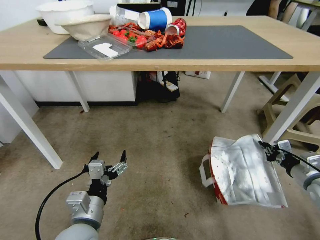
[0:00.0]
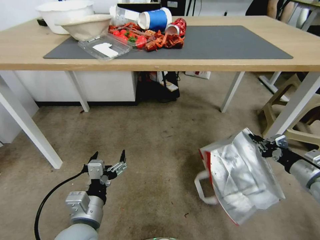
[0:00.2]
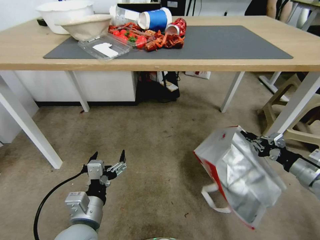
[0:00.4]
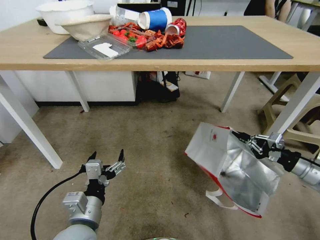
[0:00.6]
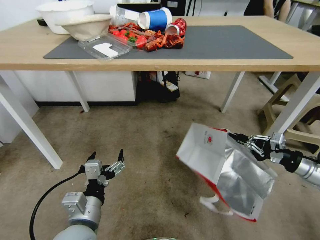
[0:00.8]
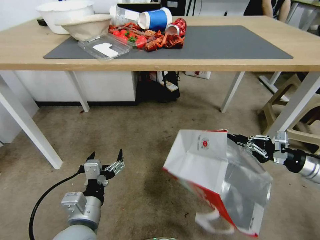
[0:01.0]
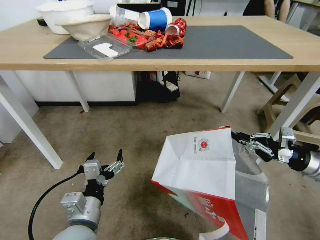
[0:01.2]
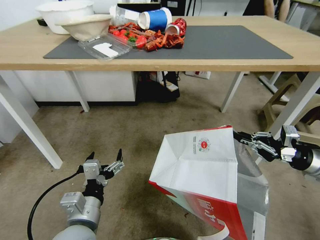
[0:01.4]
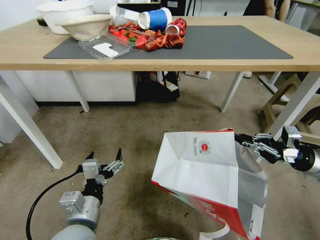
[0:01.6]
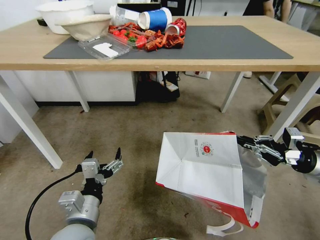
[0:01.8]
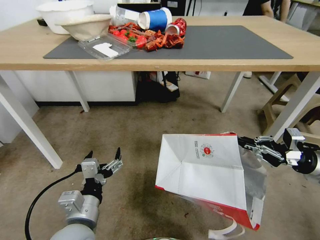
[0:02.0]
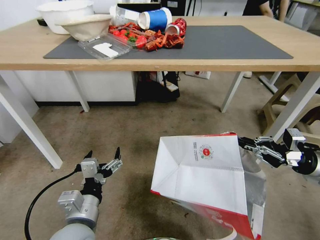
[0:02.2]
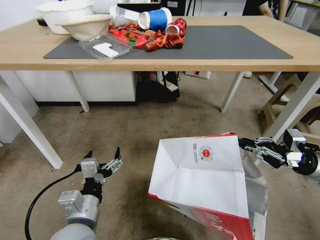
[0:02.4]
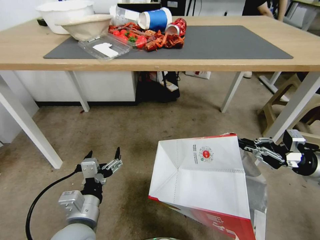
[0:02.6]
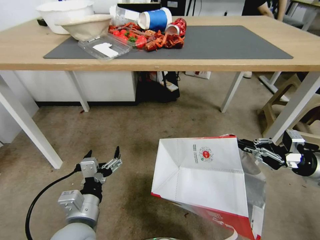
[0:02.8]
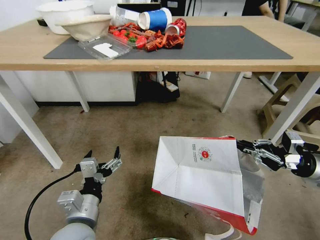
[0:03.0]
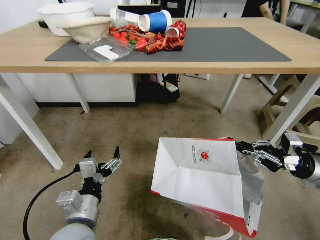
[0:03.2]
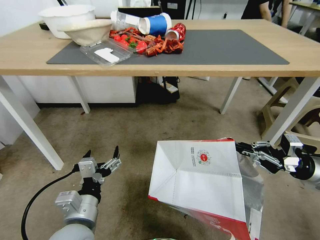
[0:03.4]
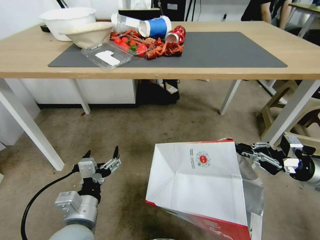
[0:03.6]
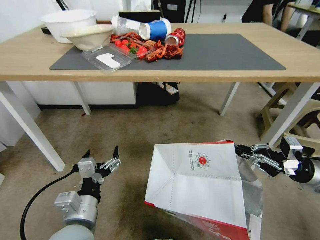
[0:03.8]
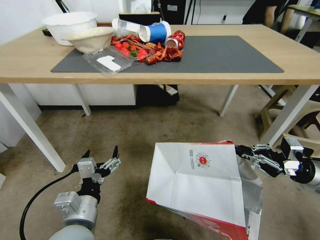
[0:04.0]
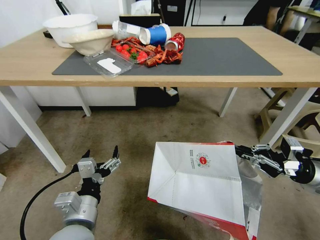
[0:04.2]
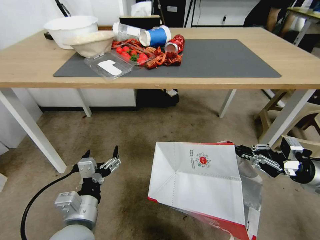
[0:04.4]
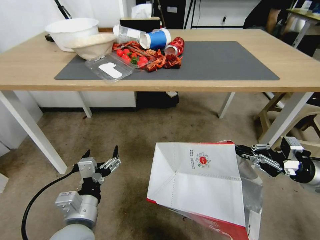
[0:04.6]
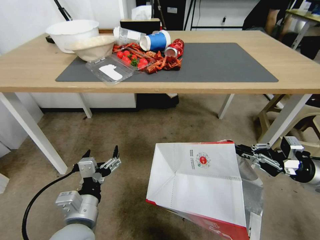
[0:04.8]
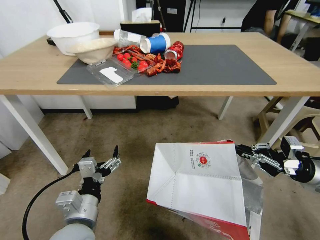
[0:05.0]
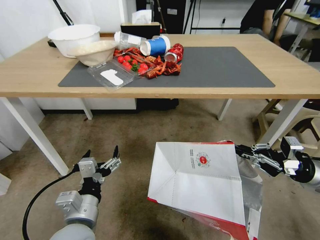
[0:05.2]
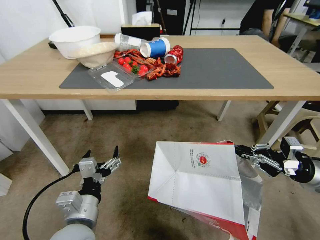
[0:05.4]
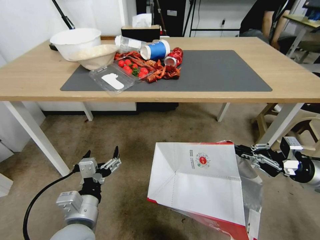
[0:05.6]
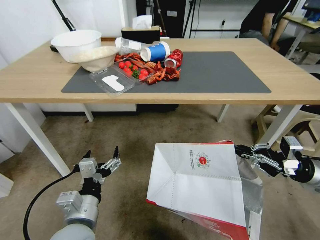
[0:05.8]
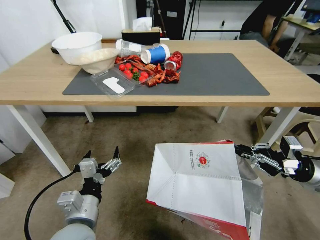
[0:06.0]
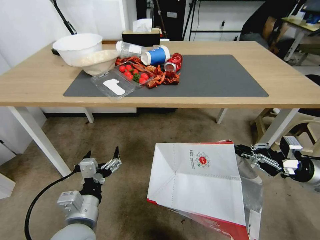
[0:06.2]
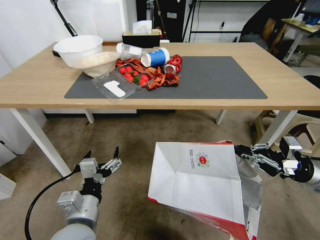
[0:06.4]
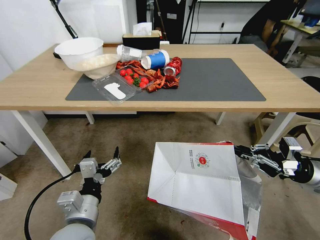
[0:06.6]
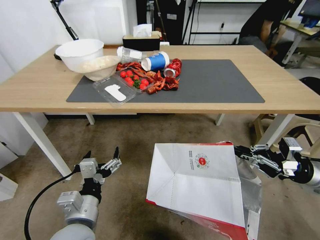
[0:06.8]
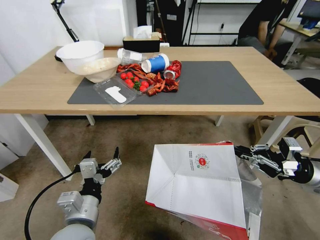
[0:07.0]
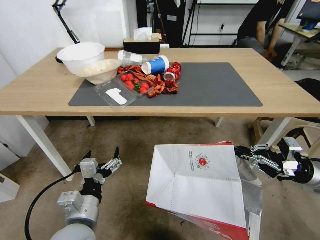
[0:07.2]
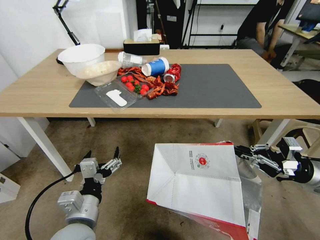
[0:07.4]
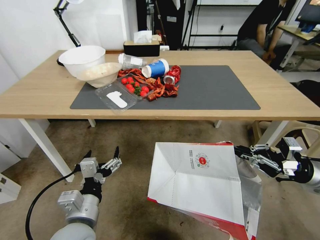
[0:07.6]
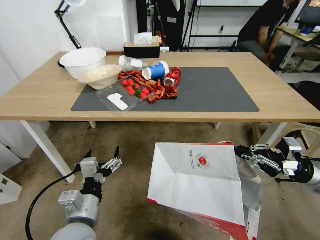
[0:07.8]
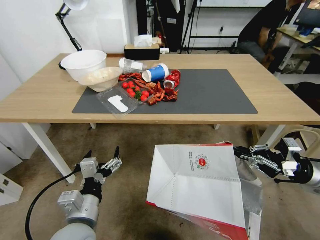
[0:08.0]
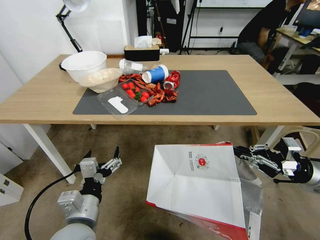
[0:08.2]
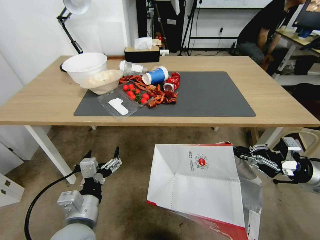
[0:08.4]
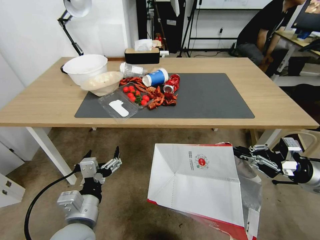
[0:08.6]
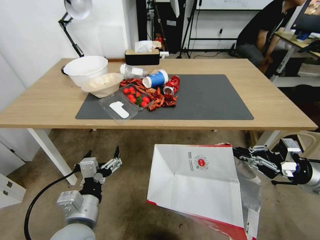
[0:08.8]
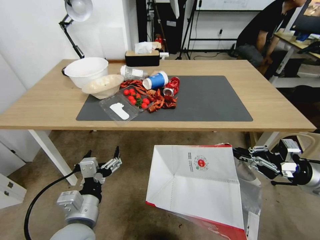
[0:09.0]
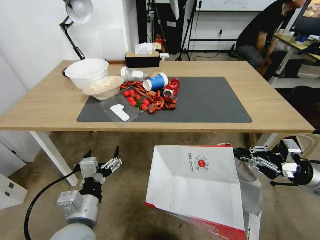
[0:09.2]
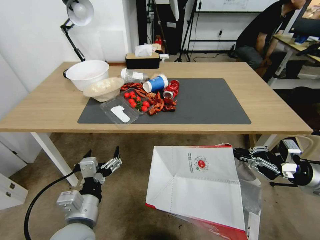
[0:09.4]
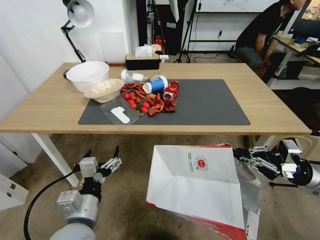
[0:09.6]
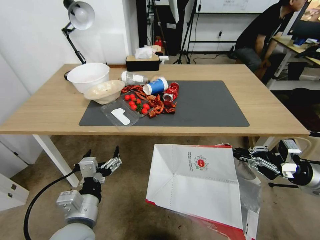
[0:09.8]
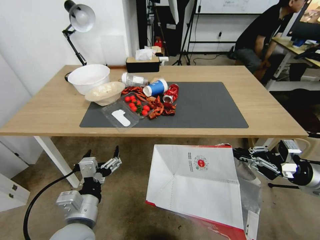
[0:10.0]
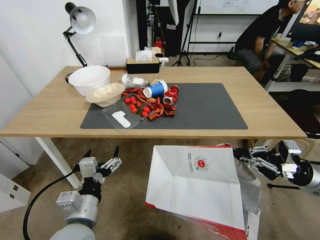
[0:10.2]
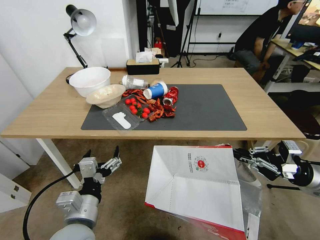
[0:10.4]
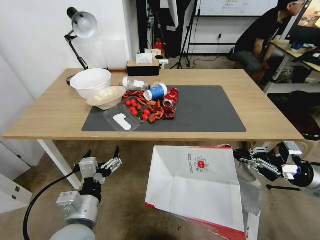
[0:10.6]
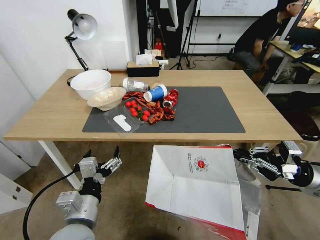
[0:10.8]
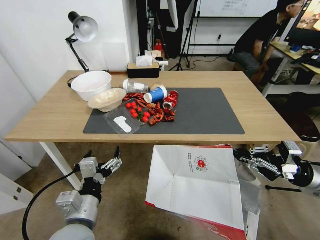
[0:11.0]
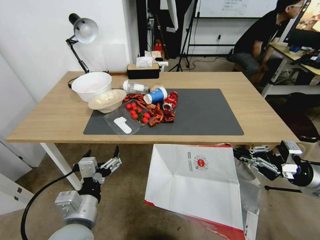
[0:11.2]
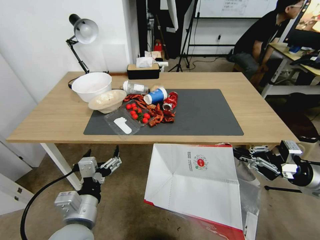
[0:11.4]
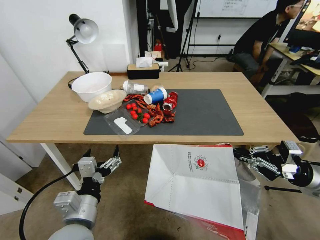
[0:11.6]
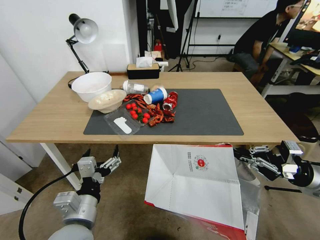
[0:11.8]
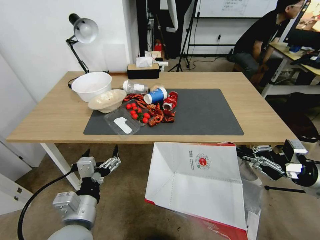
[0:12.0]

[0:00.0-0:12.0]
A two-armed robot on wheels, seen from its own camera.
Task of the whole recording: Pick up the food delivery bag from the floor and place it on the table.
0:00.0 to 0:01.6: The right gripper goes some 5 cm upward.
0:01.6 to 0:03.0: The two grippers keep their place.

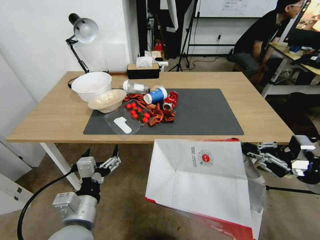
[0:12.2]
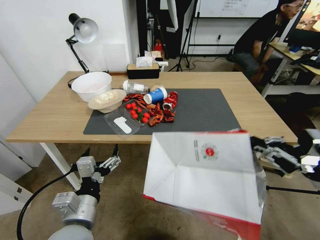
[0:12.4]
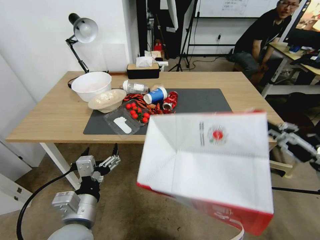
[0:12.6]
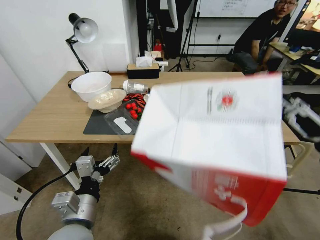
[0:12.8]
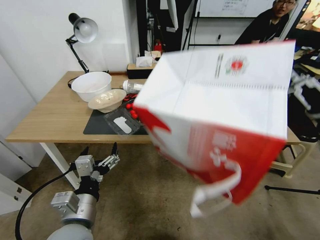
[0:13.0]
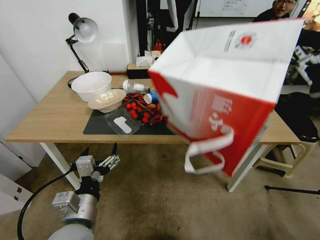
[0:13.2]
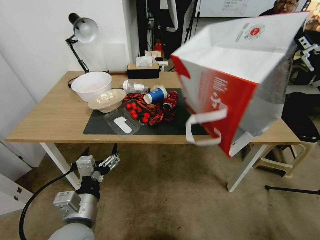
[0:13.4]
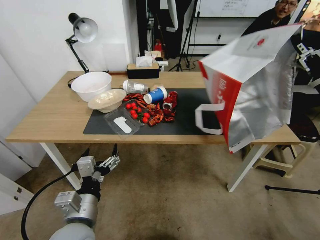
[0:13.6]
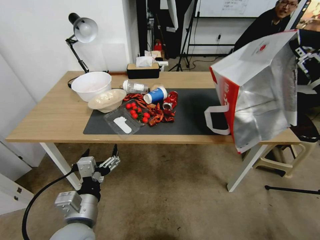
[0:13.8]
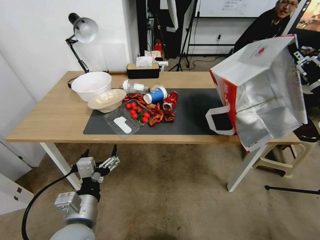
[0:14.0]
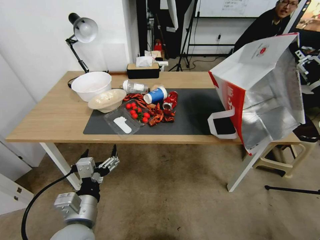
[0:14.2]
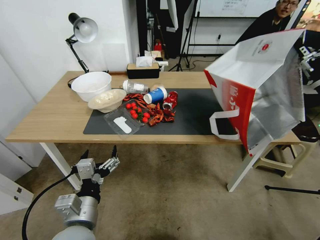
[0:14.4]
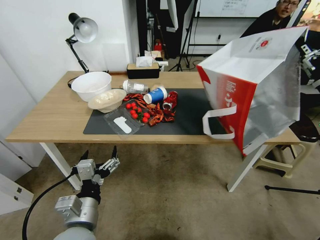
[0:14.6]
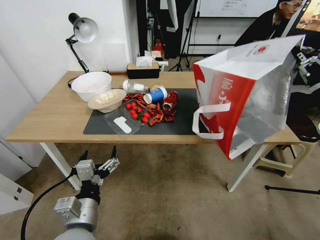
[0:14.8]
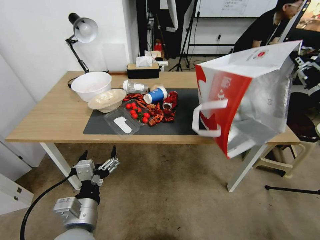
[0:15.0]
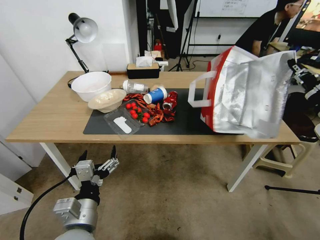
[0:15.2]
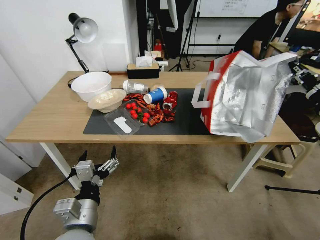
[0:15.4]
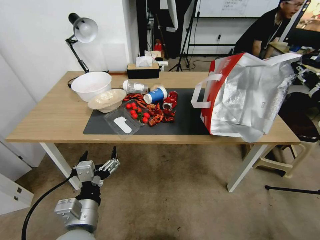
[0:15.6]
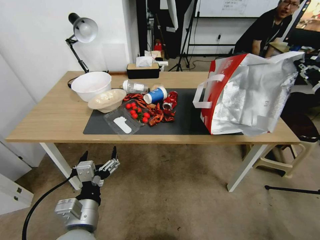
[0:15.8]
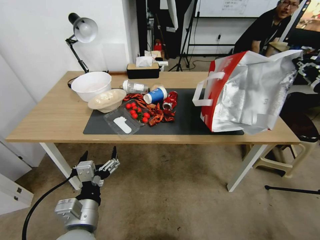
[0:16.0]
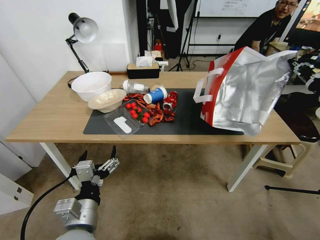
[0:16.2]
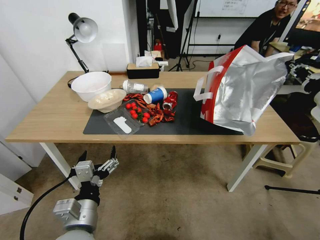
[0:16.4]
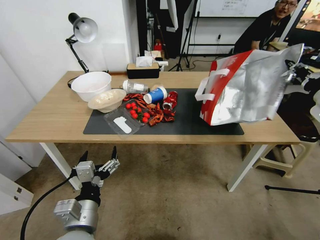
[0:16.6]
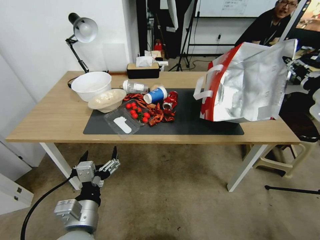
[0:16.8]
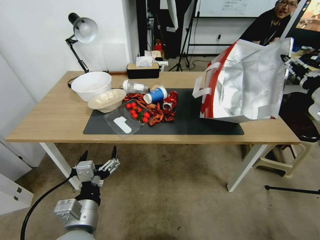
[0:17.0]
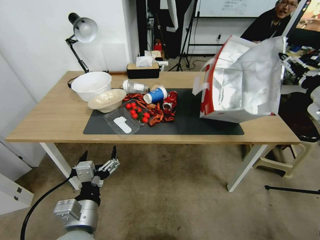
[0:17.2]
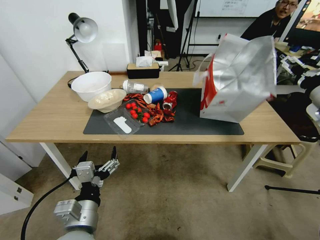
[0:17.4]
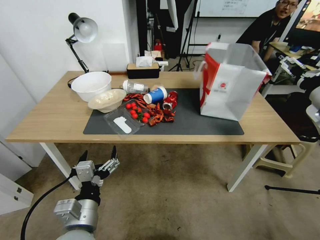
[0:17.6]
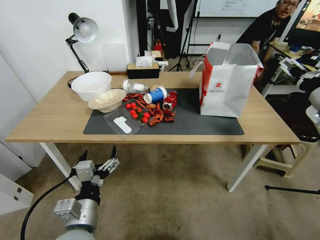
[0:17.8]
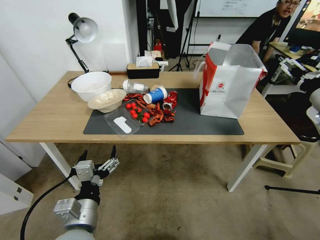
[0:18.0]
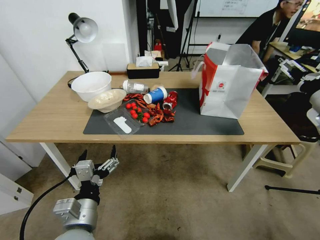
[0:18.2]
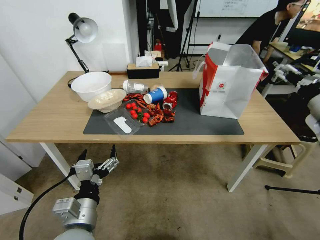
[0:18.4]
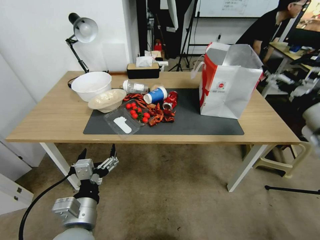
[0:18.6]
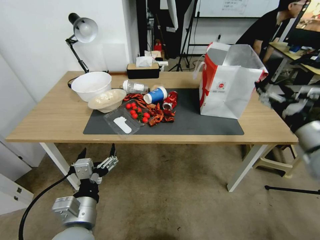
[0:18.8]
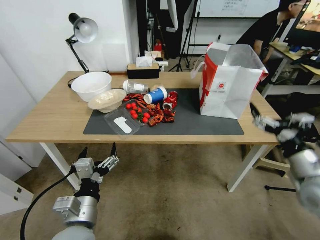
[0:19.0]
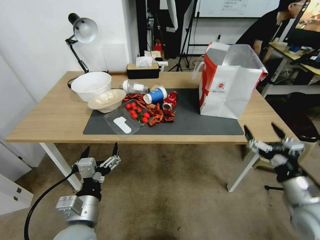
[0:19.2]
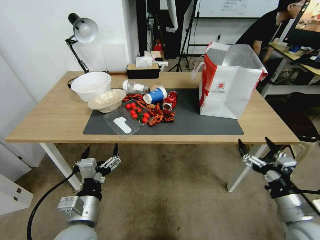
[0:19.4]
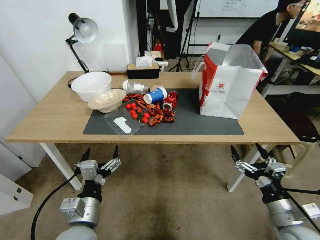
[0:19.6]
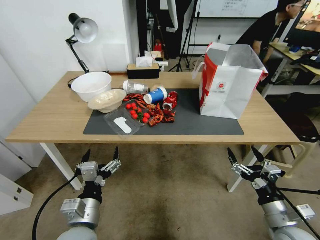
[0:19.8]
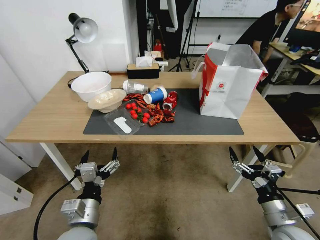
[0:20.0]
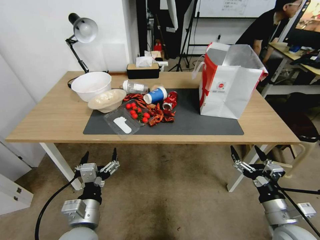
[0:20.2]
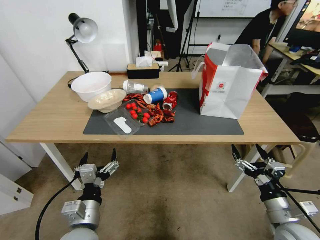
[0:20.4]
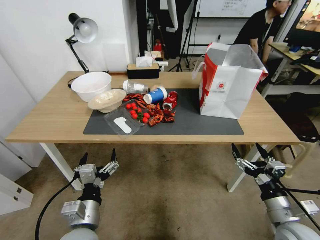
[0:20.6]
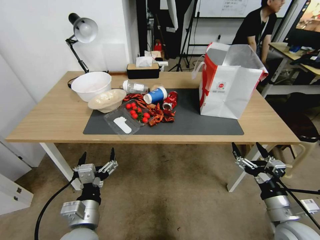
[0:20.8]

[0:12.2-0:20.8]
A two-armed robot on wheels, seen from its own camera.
Task of the whole recording: Pick up the food delivery bag from the floor and place it on the table.
0:12.2 to 0:13.6: The right gripper travels upward by approximately 10 cm.
0:15.0 to 0:16.6: The right gripper shifts some 5 cm forward.
0:16.6 to 0:18.0: The right gripper opens its fingers.
0:18.0 to 0:19.4: The right gripper shifts roughly 30 cm downward and backward.
0:19.4 to 0:20.8: The grippers move only a little.
